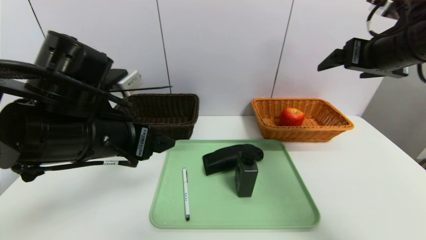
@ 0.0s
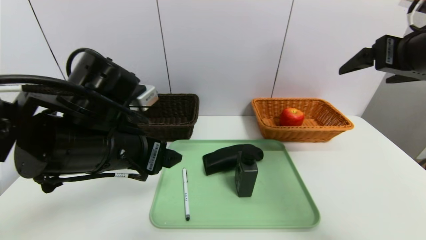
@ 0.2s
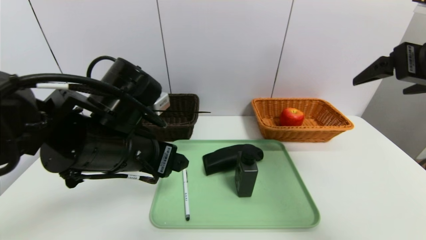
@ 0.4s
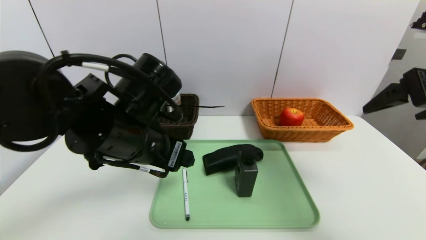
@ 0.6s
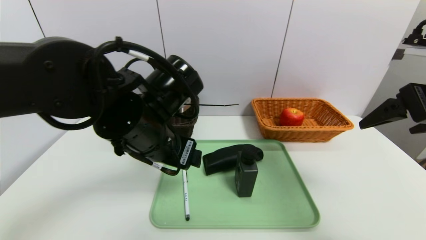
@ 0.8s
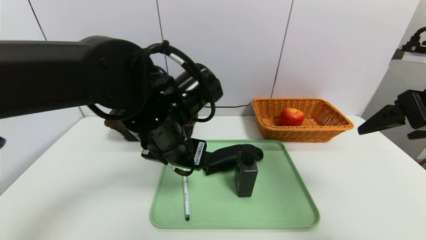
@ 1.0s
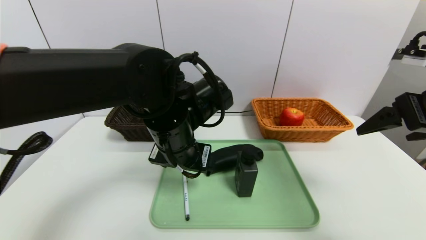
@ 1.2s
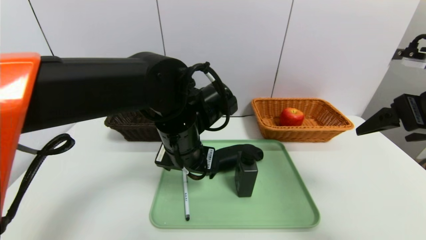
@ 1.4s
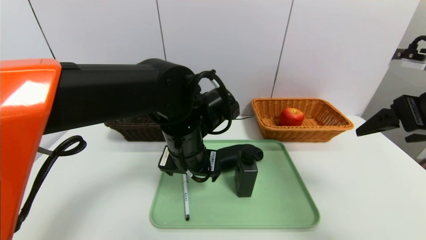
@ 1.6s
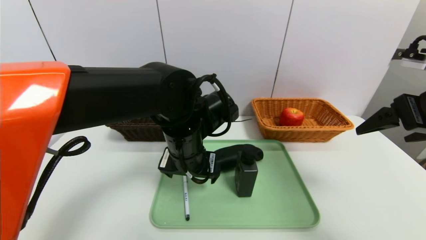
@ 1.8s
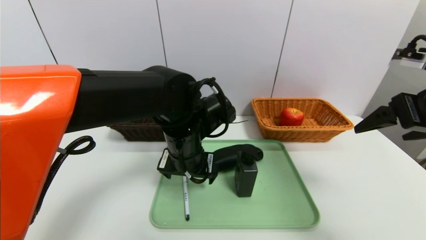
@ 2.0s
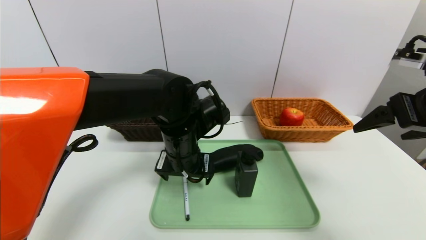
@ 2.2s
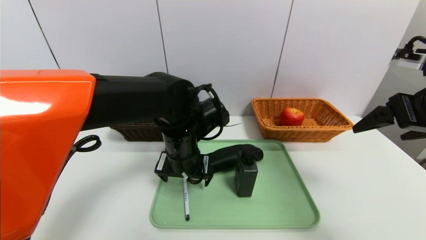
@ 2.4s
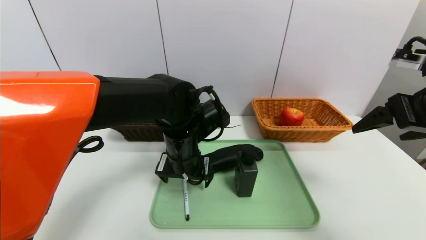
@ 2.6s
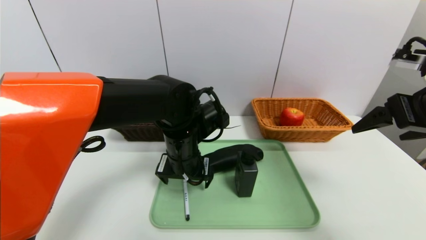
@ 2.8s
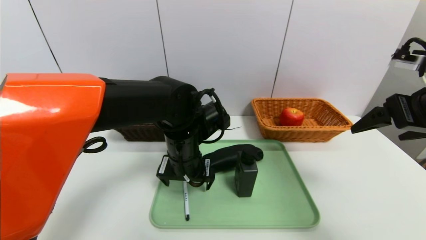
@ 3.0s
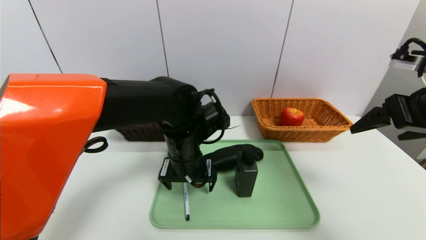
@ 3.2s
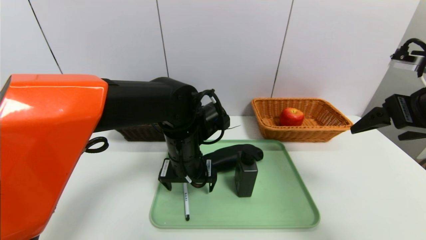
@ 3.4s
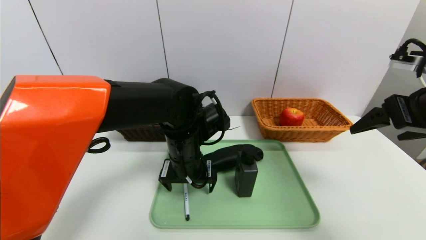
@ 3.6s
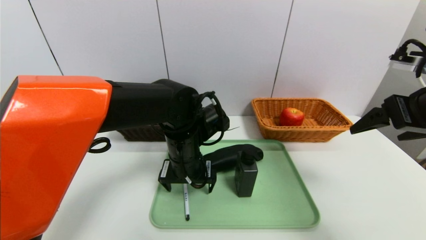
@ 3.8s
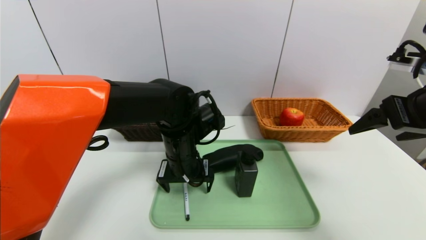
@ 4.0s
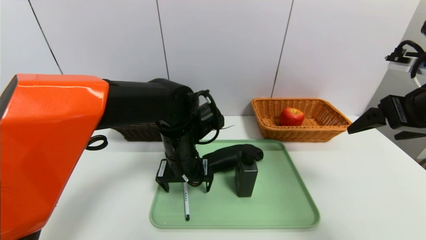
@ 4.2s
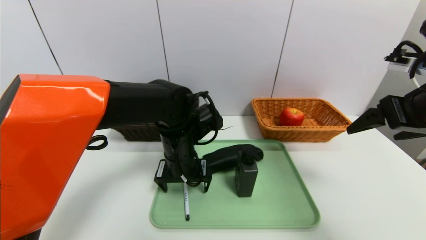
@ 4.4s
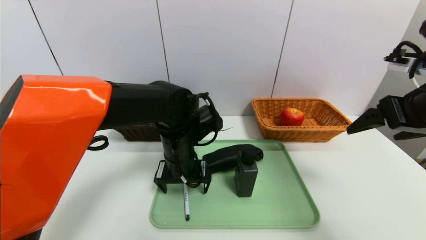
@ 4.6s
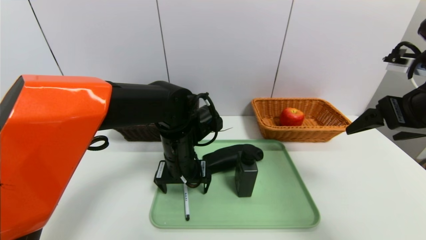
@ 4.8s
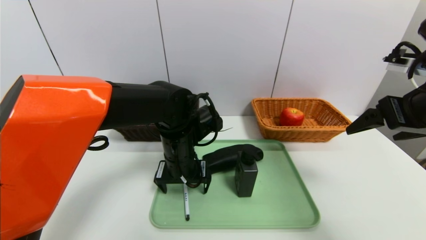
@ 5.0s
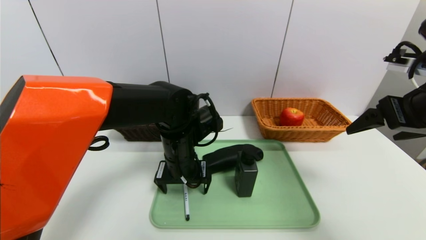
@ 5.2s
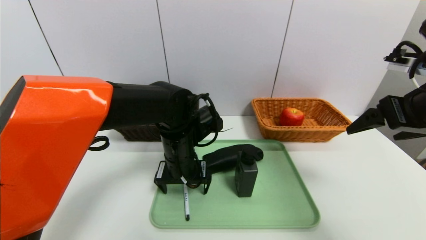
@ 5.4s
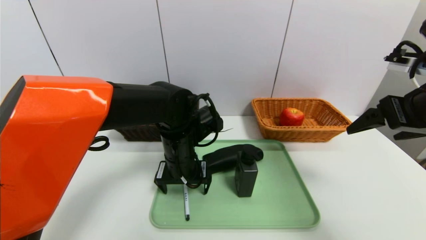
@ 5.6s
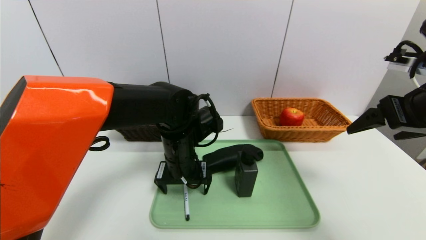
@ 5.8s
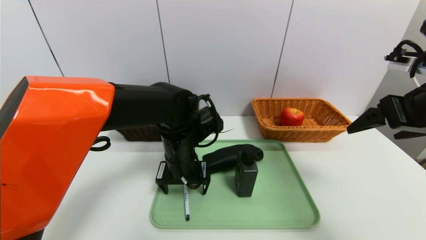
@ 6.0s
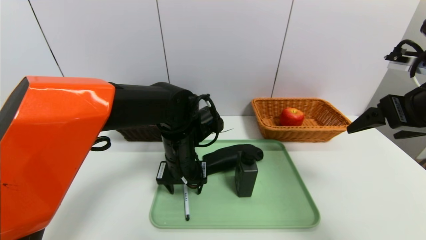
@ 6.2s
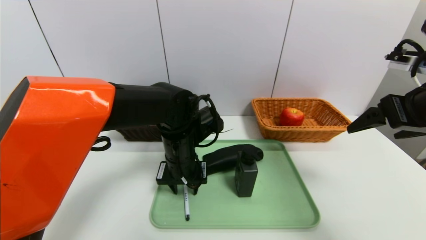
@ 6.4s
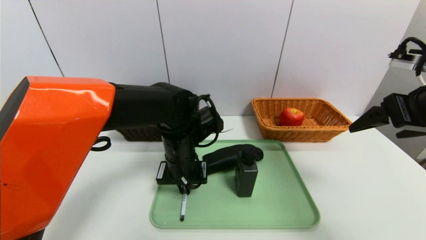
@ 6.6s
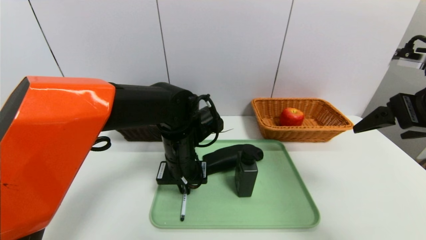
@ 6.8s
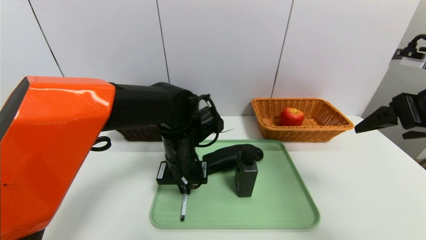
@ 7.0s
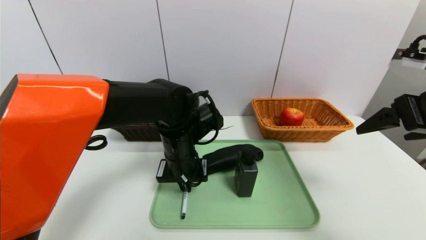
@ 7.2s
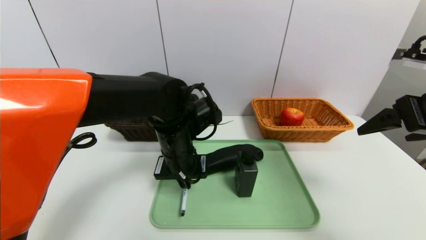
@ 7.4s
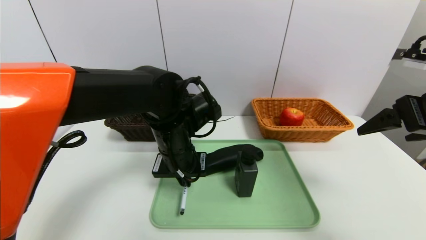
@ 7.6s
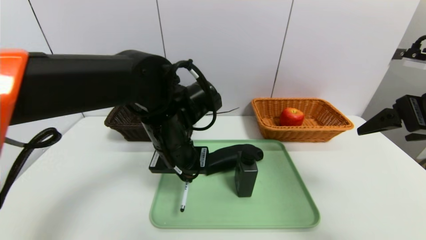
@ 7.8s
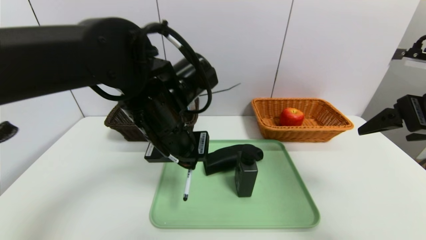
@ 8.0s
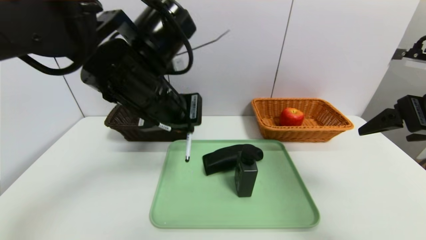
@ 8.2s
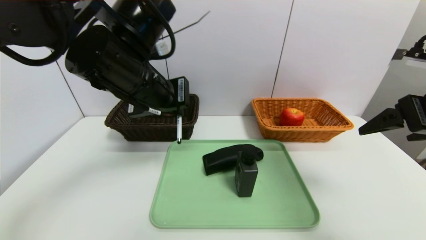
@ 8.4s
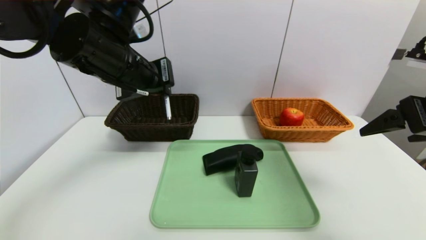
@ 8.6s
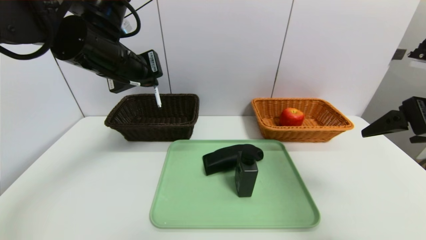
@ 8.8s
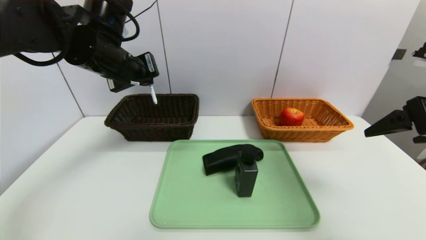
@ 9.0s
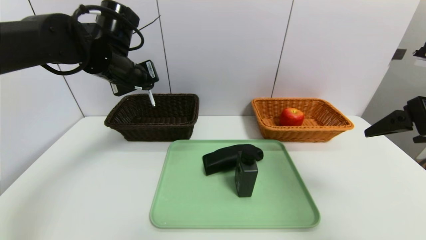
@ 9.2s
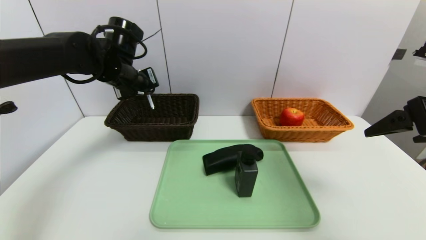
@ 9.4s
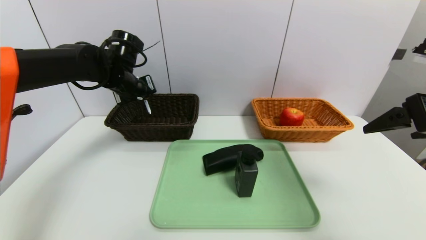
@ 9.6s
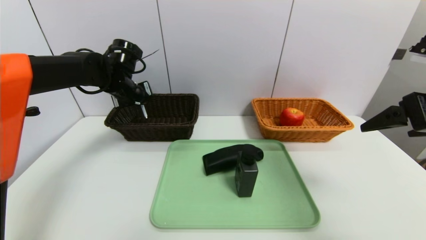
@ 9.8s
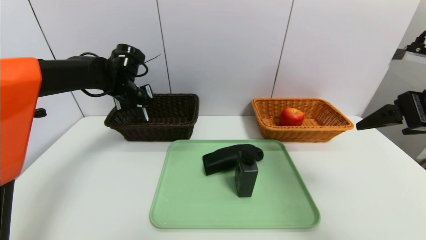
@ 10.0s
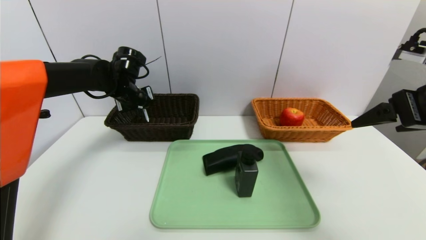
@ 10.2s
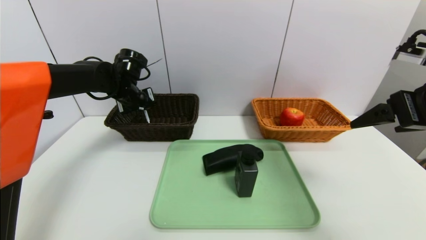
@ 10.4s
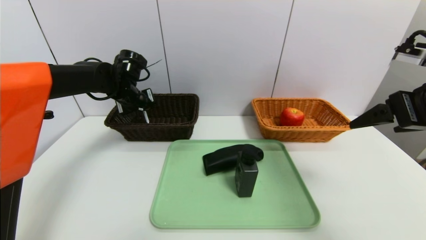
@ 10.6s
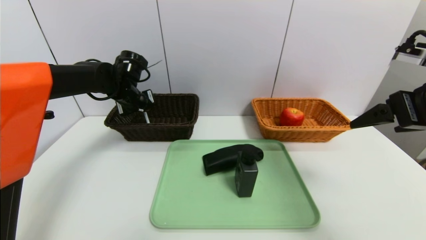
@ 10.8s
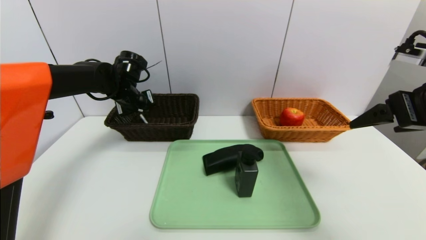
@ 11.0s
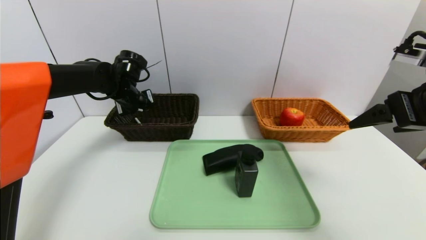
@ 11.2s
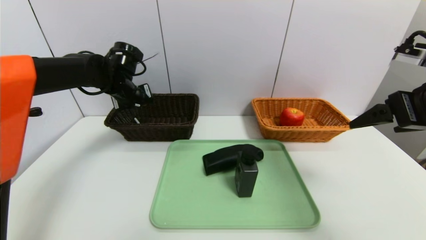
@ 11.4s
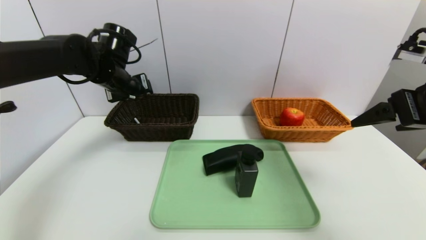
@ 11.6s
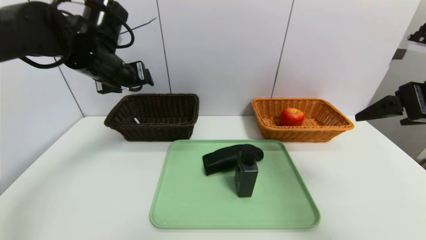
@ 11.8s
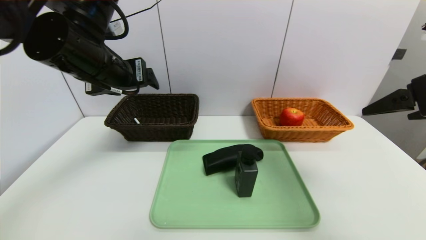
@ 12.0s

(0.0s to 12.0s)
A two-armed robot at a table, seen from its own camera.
Task of the whole recording: place the food in the right basket with the right gripper, and place the non food items in the left basket with the left gripper.
Step, 0.0s - 11.4s: Grasp the ballpoint pen and put it in the left basket.
0.0s - 1.6s: The left gripper goes roughly 15 cm to the right, forward and downward. Meanwhile the right gripper is displaced backward by about 10 cm.
1.6s - 4.4s: The grippers stay close to where they were, moving slightly.
4.4s - 6.0s: The two grippers keep their place.
6.0s - 7.6s: The left gripper closes up.
7.6s - 9.0s: The left gripper goes some 20 cm upward, to the left and forward.
9.0s - 10.4s: The left gripper heads downward and forward, covering roughly 15 cm.
10.4s - 12.0s: The left gripper moves backward and upward, some 20 cm, and opens up.

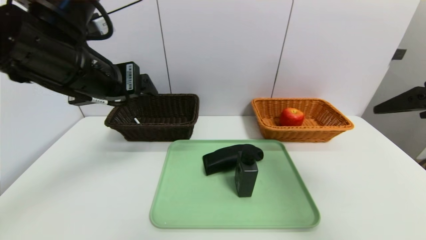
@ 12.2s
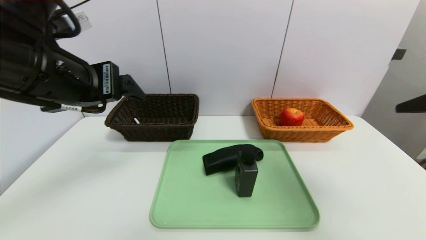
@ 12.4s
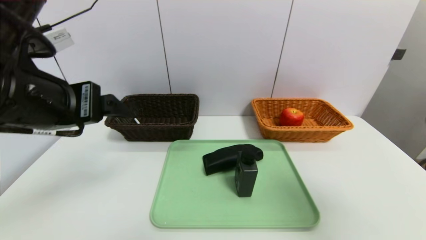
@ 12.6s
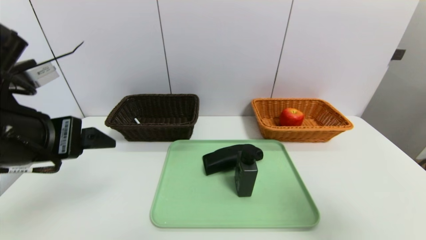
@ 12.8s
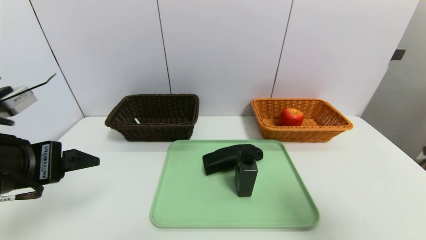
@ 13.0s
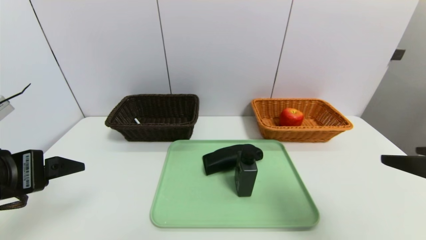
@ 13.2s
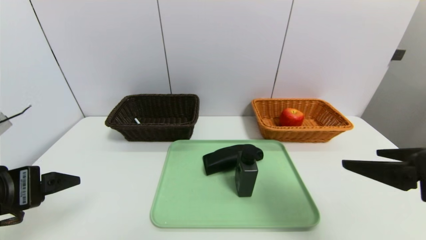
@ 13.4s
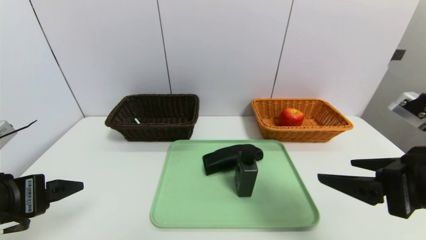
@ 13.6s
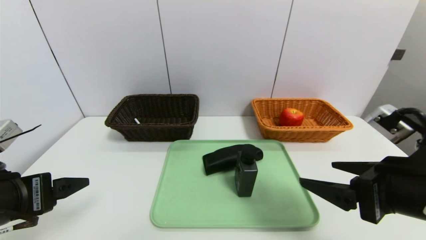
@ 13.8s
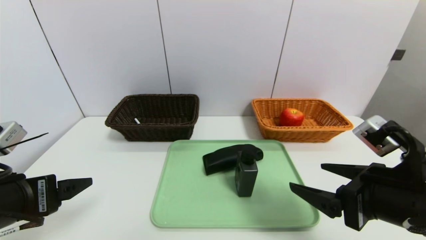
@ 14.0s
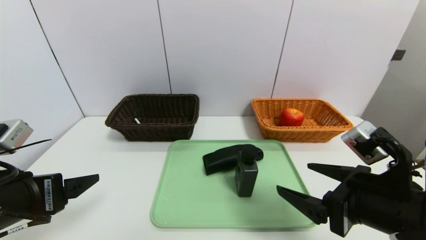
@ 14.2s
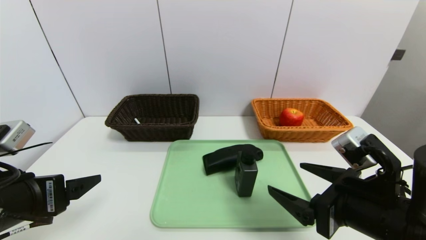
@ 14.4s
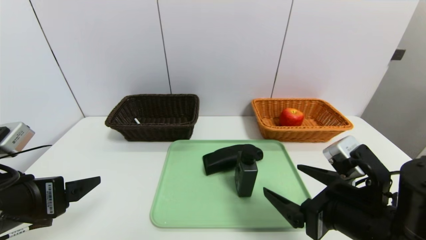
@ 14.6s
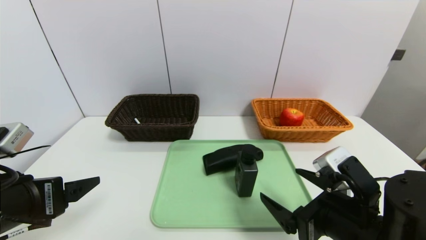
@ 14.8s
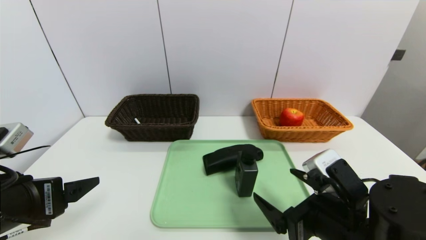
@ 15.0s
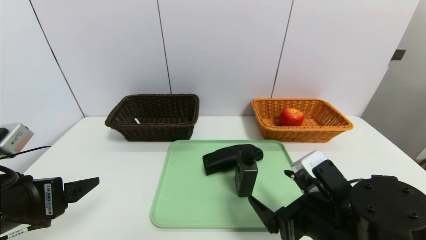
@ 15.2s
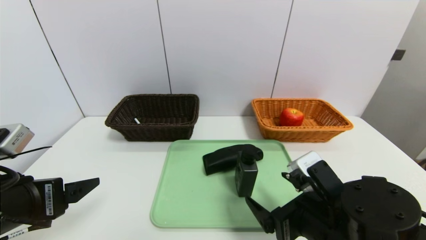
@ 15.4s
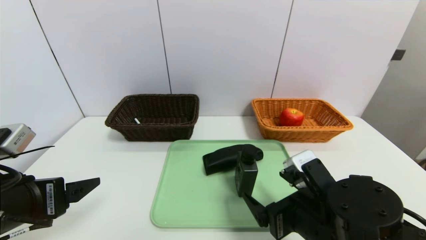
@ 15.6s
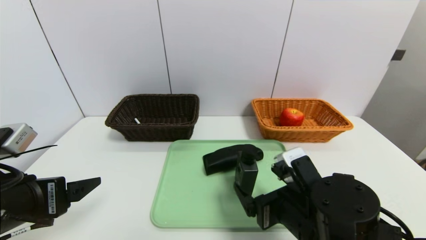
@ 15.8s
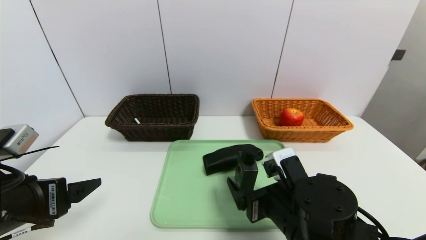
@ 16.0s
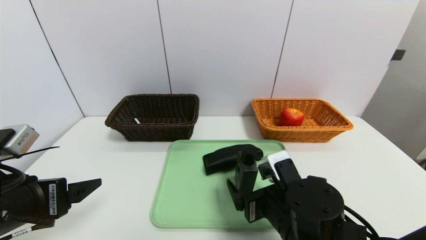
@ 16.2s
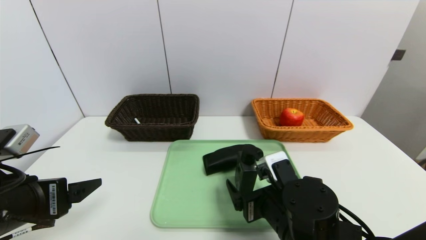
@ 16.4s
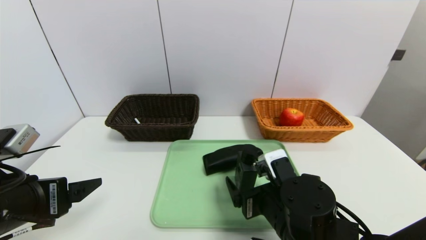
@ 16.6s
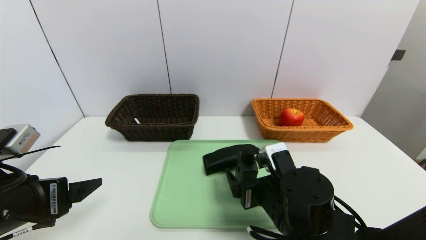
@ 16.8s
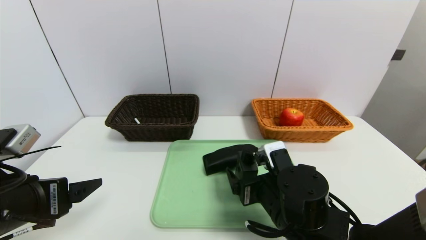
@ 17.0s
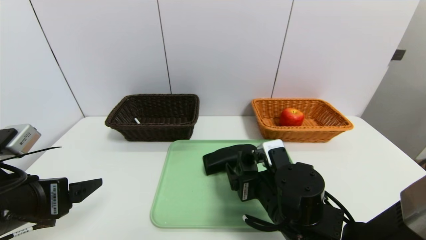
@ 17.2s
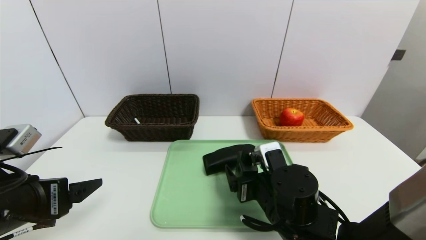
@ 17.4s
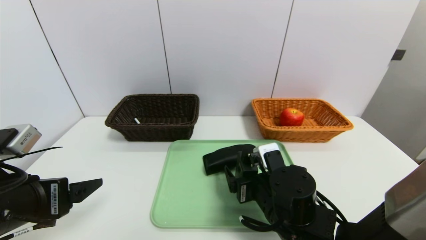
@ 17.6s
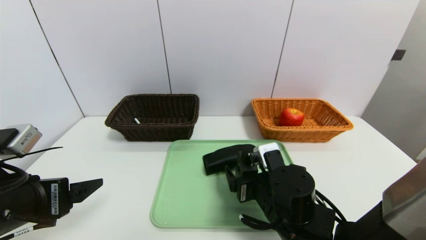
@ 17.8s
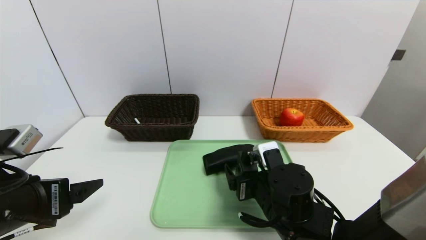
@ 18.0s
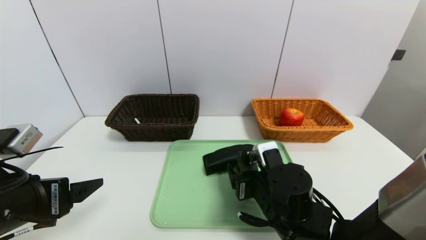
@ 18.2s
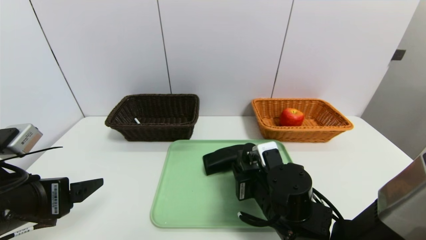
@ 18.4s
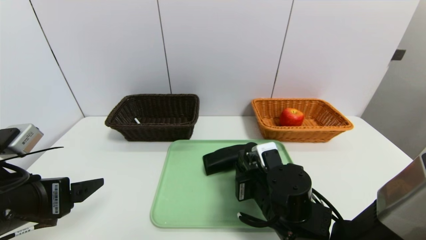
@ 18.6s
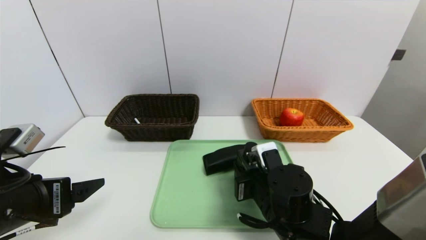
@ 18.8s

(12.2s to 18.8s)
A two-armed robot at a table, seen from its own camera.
Task of the whole recording: place the food in the right basket with the right gripper, and place the non food items in the left basket with the left gripper.
12.2s - 13.8s: The right gripper goes roughly 15 cm downward and to the left. Meanwhile the left gripper is displaced downward, backward and to the left by some 20 cm.
13.8s - 15.4s: The right gripper is displaced downward and to the left by approximately 10 cm.
15.4s - 17.2s: The right gripper travels forward by roughly 5 cm.
17.2s - 18.8s: The right gripper closes.
